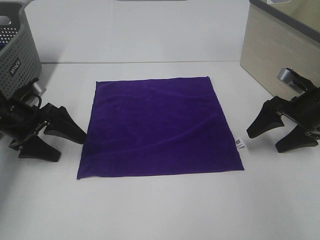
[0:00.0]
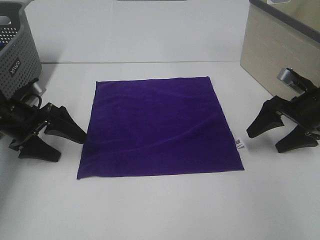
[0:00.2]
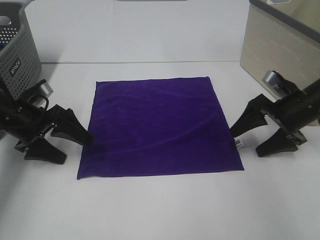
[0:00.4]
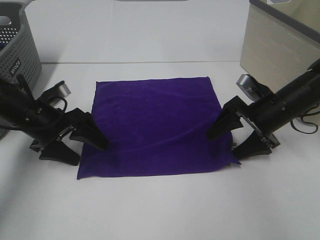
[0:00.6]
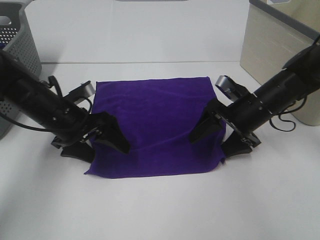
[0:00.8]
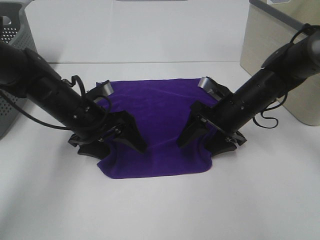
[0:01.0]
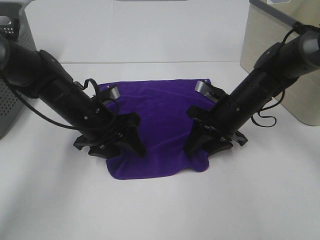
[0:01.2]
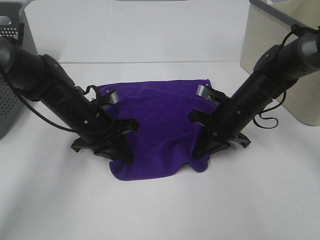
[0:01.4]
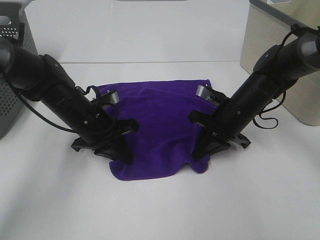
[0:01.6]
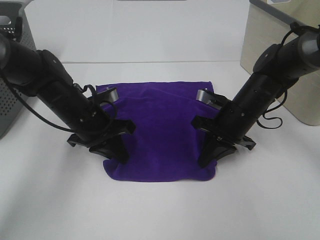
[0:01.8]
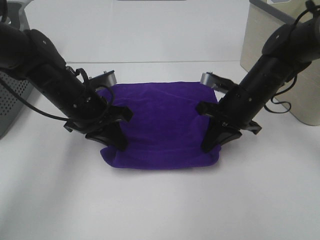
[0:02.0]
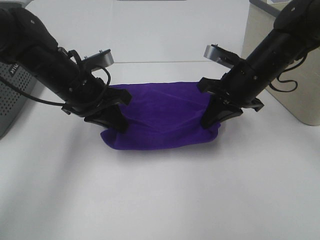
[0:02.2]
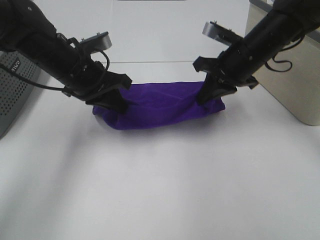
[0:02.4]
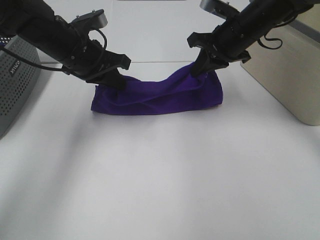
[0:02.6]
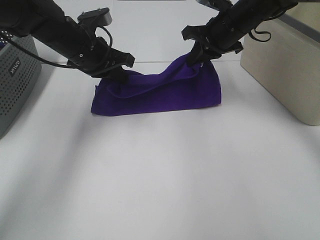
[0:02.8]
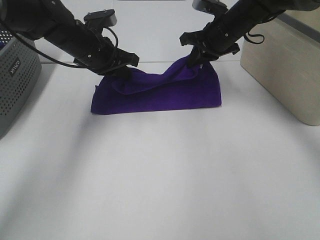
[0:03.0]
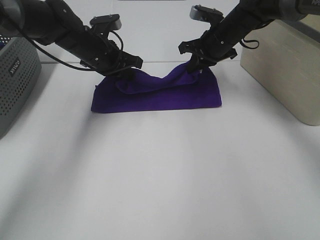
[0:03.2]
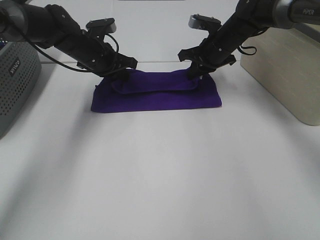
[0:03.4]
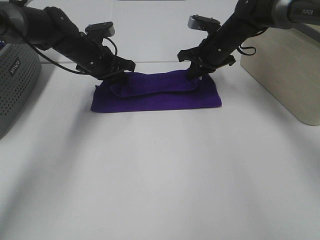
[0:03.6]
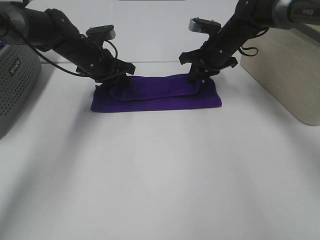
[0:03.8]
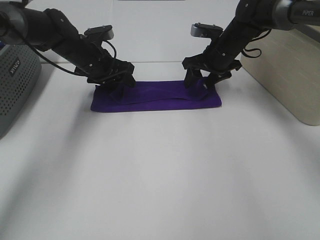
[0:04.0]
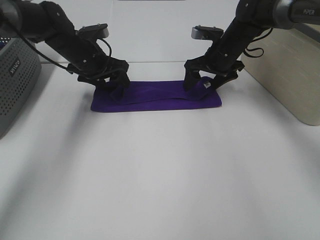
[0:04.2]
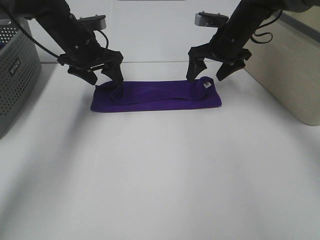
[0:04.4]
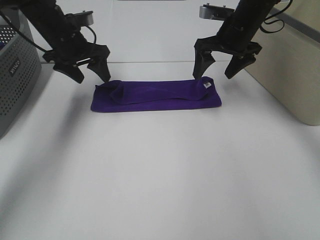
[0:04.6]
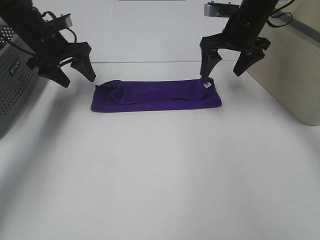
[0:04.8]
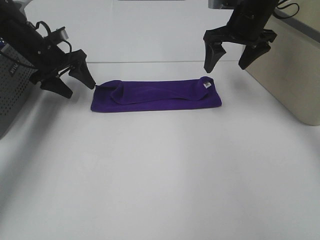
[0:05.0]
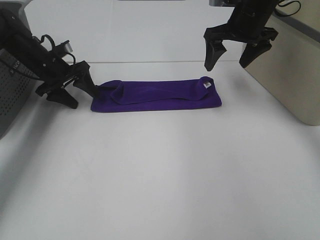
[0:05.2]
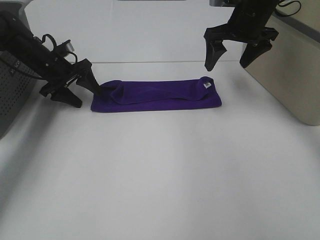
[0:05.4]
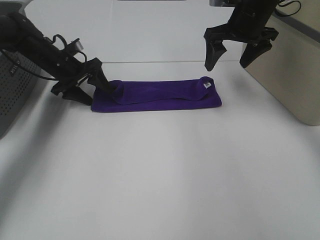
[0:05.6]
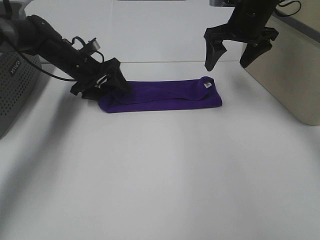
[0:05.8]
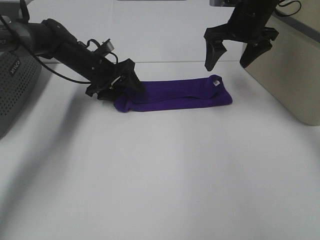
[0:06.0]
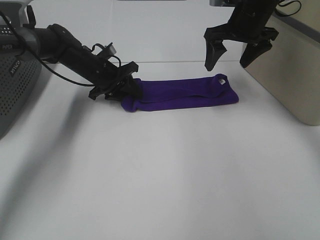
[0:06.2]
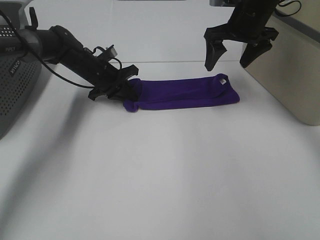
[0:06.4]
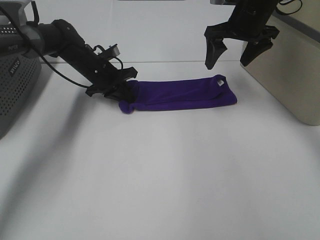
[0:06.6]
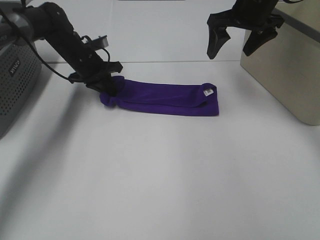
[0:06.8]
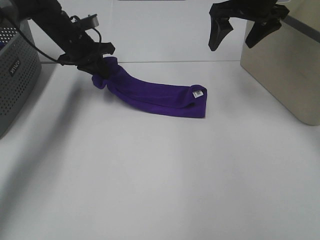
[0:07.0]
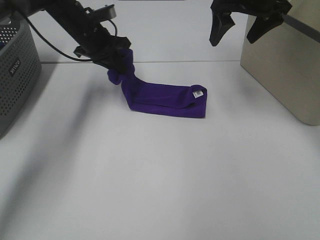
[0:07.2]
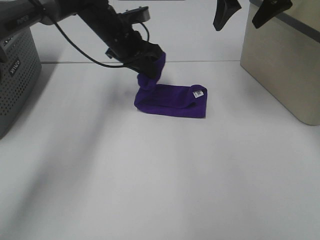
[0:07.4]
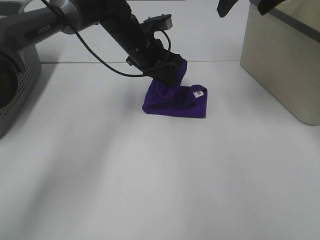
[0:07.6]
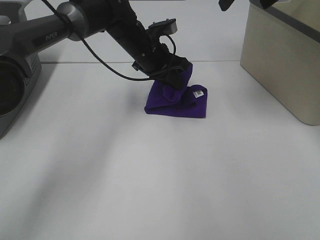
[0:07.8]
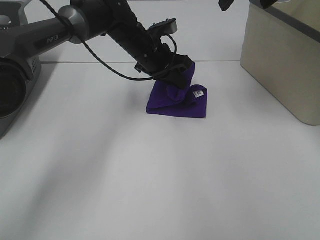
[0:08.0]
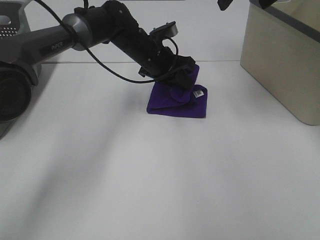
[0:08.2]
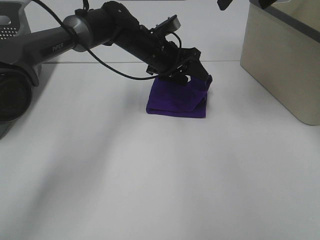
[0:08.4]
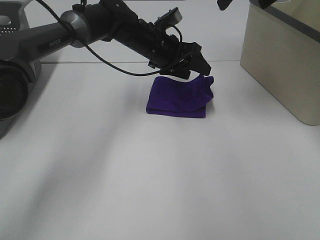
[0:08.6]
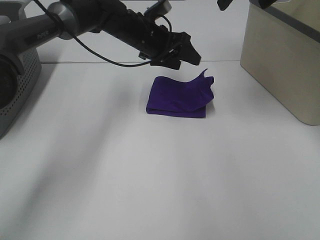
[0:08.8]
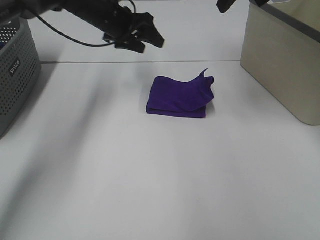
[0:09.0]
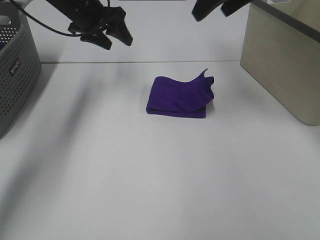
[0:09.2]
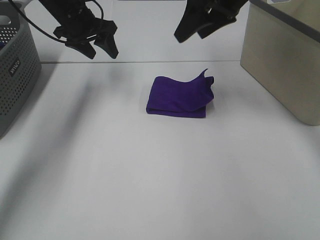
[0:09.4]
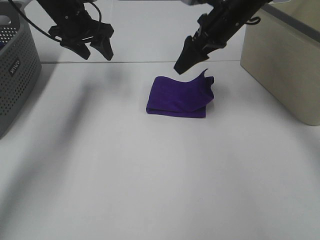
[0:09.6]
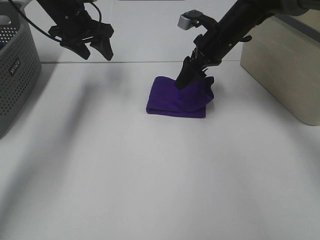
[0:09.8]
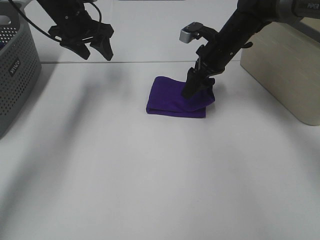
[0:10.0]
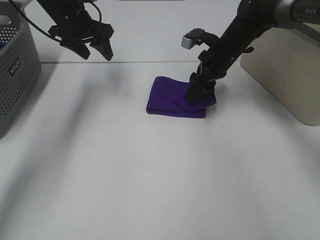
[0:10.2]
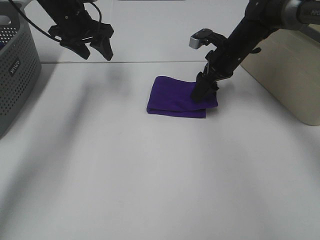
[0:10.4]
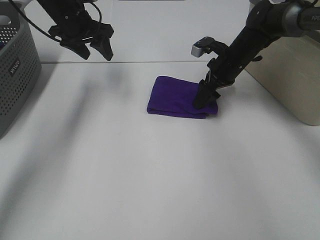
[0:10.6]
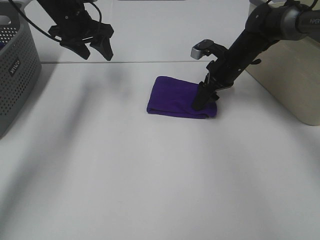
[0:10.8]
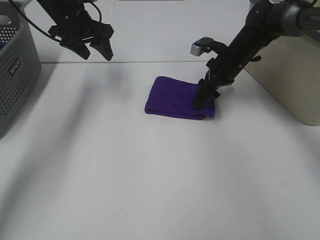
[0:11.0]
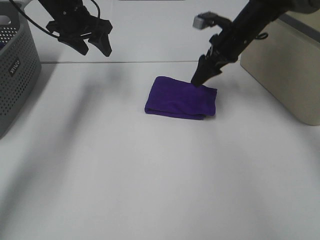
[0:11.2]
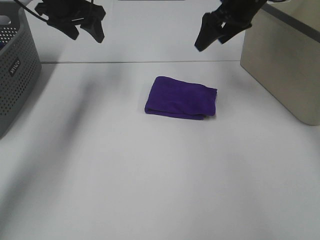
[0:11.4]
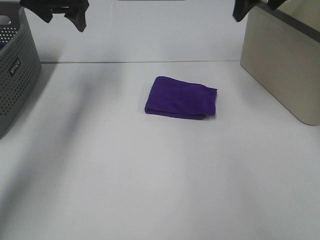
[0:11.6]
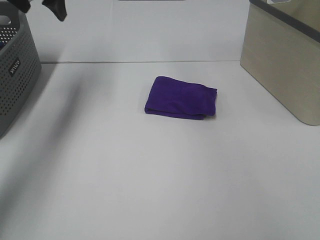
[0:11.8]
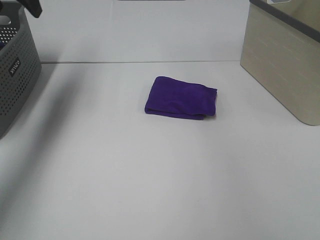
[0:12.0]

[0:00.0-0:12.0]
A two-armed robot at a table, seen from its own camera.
Task of the whole recording: Fold towels.
Step, 0:01.6 to 0:03.8: Left hand: fold the purple towel up.
Step, 0:01.6 to 0:03.8: Right hand: fold the purple towel up.
Step, 0:04.0 to 0:08.2: Left hand: fold the purple towel from left to right.
Step, 0:08.4 to 0:10.8: Right hand: adjust the purple towel.
0:00.0 to 0:01.6: The left gripper shifts roughly 15 cm to the right, and closes up, while the right gripper goes some 15 cm to the left, and closes.
0:01.6 to 0:03.0: Both grippers move forward and upward, roughly 15 cm.
0:03.0 to 0:04.4: The right gripper opens its fingers, while the left gripper opens.
0:04.4 to 0:06.0: The left gripper moves downward, some 10 cm. Meanwhile the right gripper is displaced upward by about 5 cm.
0:06.0 to 0:07.6: The right gripper heads upward, covering some 10 cm. The left gripper goes approximately 15 cm to the right and upward, and closes its fingers.
0:07.6 to 0:09.0: The left gripper heads to the left, covering about 10 cm, and opens its fingers.
0:09.0 to 0:10.4: The right gripper shifts some 25 cm downward, while the left gripper heads to the left, covering some 5 cm.
0:10.4 to 0:12.0: The left gripper shifts roughly 20 cm upward, to the left and backward. Meanwhile the right gripper moves upward, to the right and backward, approximately 35 cm.

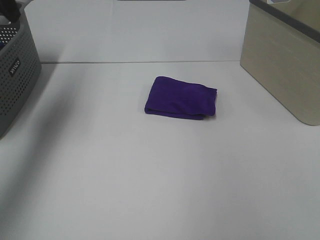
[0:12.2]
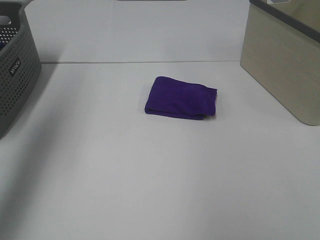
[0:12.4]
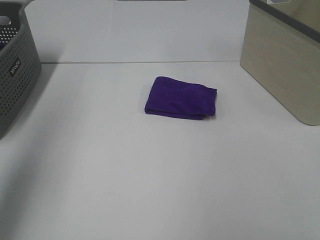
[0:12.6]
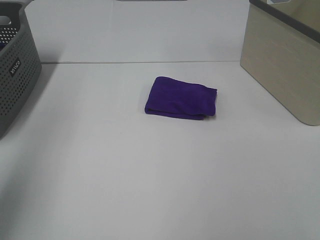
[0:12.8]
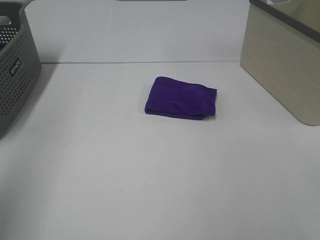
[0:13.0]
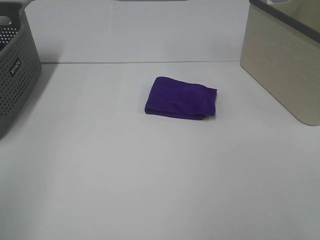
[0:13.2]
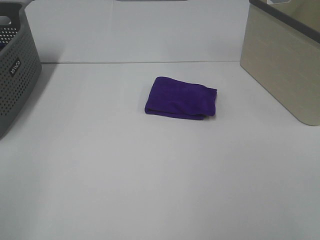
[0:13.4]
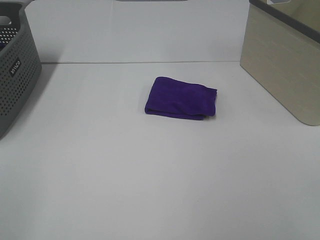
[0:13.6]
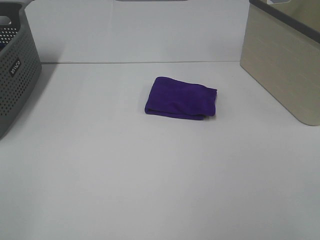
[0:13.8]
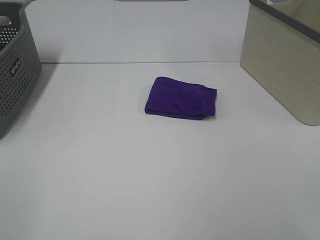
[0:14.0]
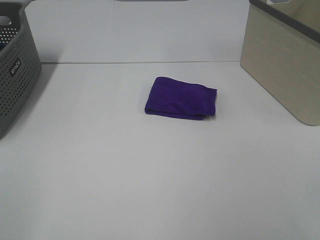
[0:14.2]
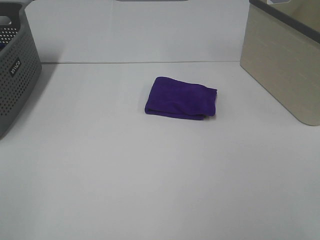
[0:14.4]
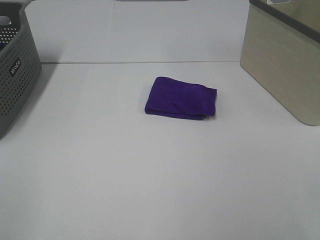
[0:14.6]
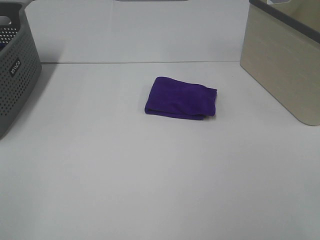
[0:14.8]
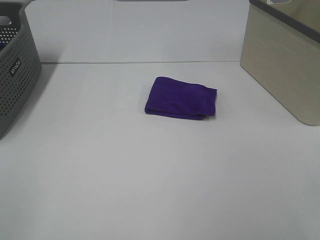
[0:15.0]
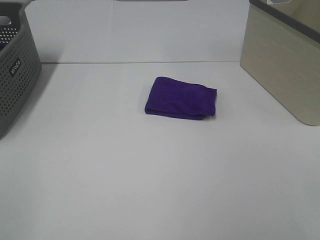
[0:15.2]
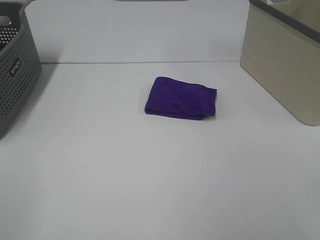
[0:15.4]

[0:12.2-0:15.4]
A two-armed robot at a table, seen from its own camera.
Task of the whole recording: Fold towels.
0:12.2 to 0:13.8: The left gripper heads backward, covering approximately 35 cm.

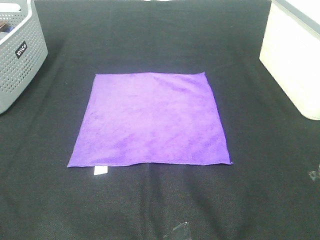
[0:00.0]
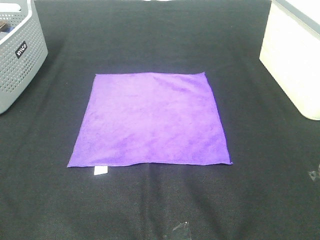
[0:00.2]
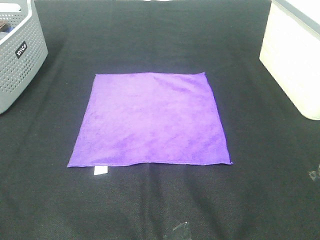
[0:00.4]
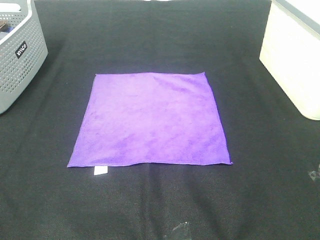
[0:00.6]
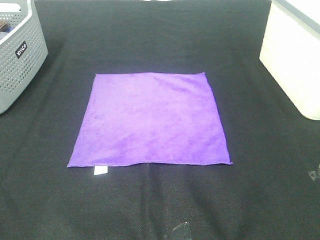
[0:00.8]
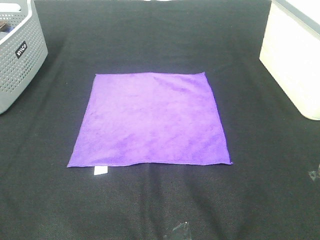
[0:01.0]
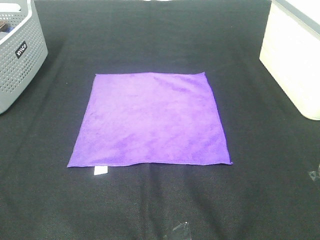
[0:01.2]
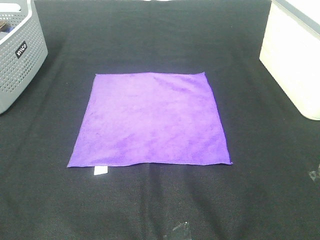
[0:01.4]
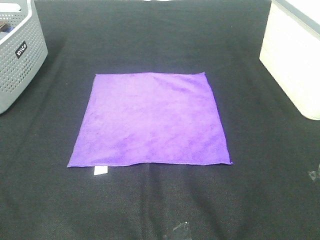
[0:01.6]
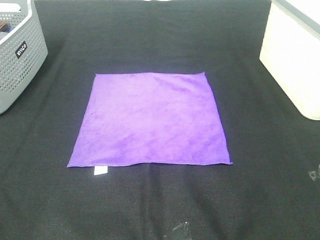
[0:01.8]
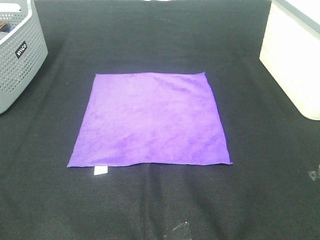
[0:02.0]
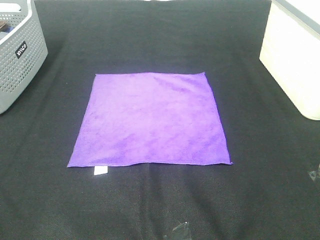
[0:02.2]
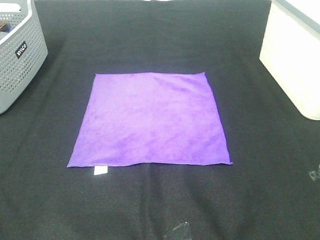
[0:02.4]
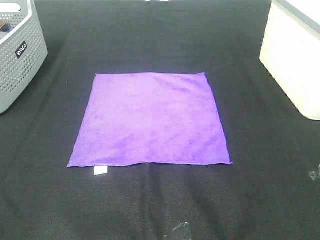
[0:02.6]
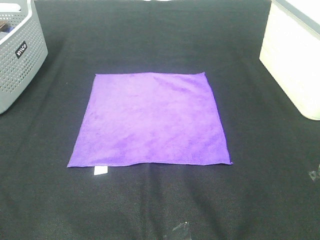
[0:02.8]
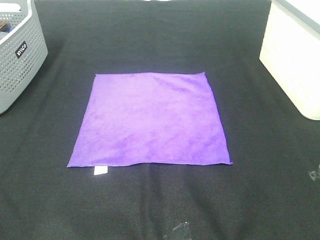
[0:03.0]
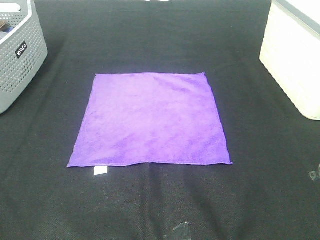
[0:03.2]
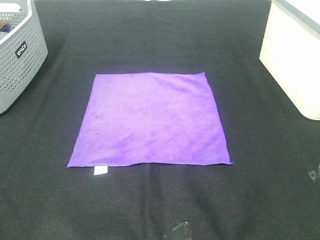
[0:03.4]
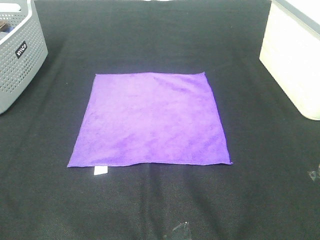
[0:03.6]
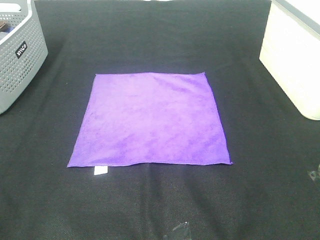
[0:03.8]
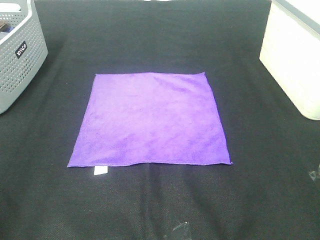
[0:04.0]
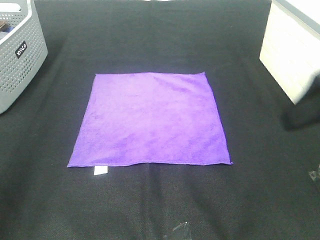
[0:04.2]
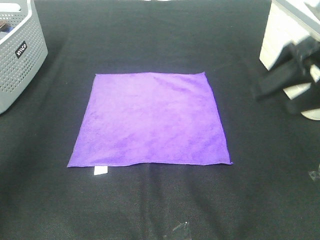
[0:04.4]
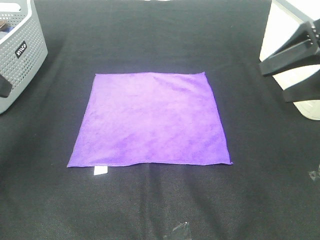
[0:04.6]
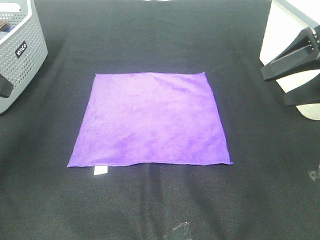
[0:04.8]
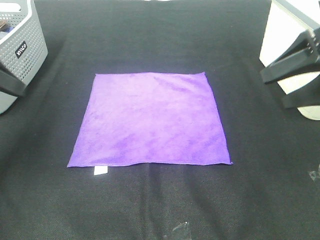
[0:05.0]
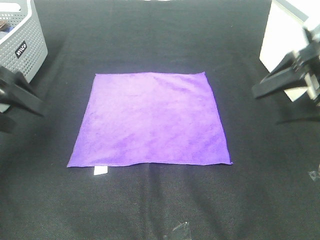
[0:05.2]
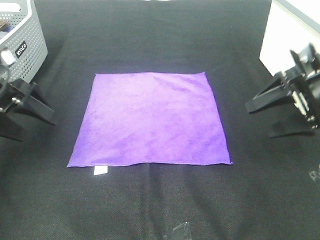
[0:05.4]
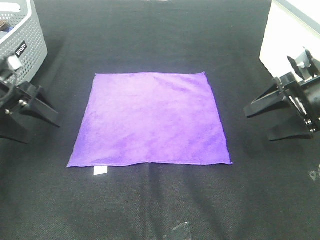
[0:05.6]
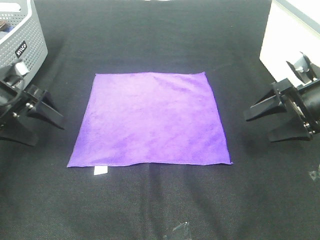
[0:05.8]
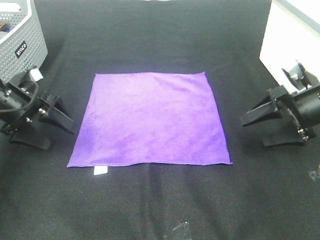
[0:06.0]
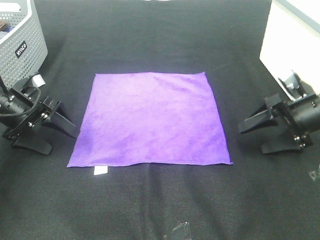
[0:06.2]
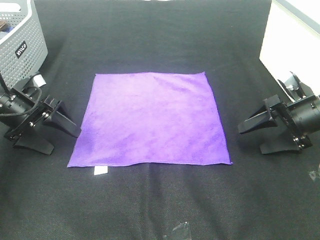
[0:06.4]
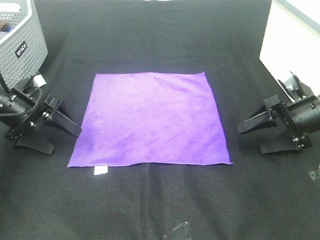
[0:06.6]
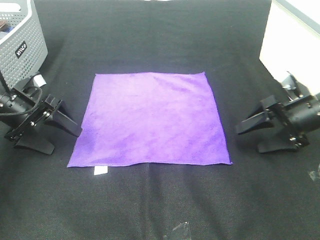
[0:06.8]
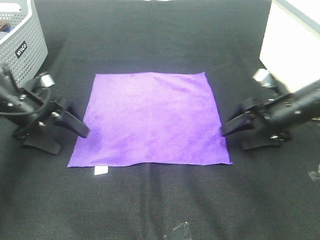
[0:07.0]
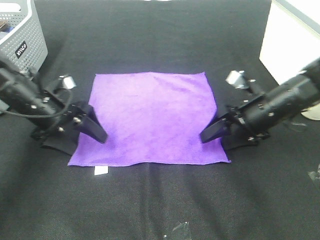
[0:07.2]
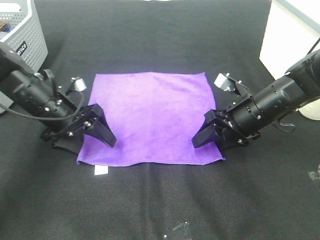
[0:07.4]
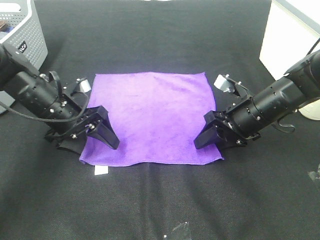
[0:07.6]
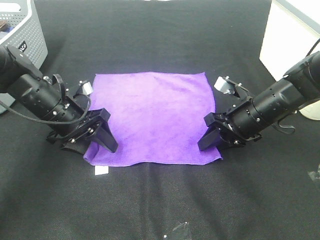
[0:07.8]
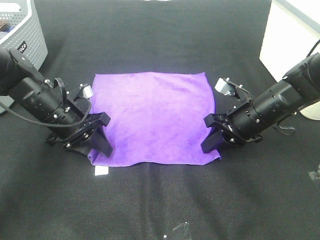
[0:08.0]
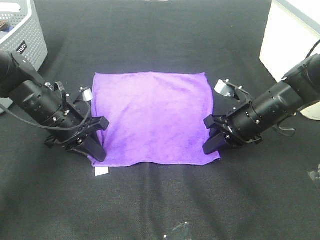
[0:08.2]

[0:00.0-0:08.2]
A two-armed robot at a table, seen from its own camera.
Task of the whole recording: Fold towels.
Step, 0:00.0 to 0:08.2: Left hand: grab the bottom left corner of purple towel.
Step, 0:00.0 to 0:08.2: Right hand: grab the bottom right corner of purple towel.
0:00.0 to 0:03.2: Both grippers stay about where they are.
0:03.2 to 0:05.0: Both grippers move forward, approximately 30 cm.
0:05.0 to 0:06.6: The right gripper travels downward by approximately 15 cm. The left gripper heads downward and forward, covering some 15 cm.
0:06.6 to 0:08.2: The right gripper heads to the left, covering approximately 10 cm, and closes. The left gripper goes some 10 cm to the right, and closes its fingers.
